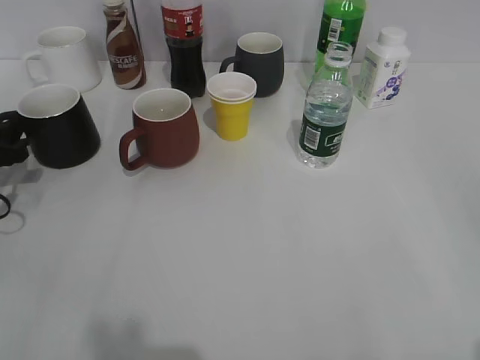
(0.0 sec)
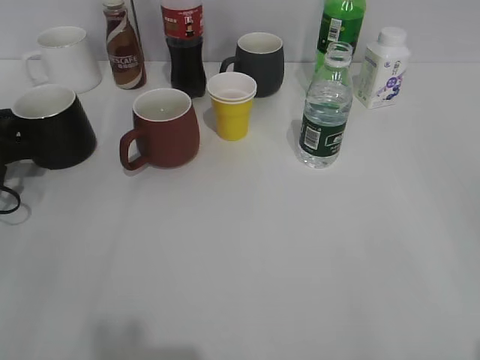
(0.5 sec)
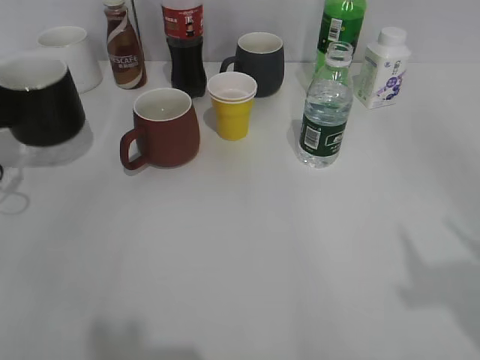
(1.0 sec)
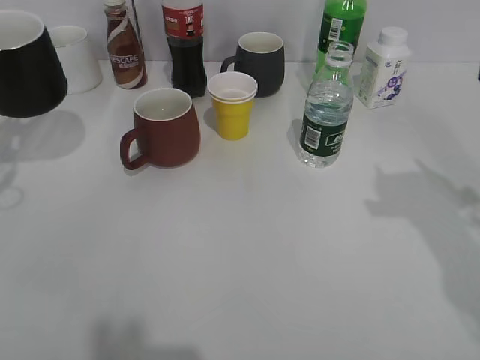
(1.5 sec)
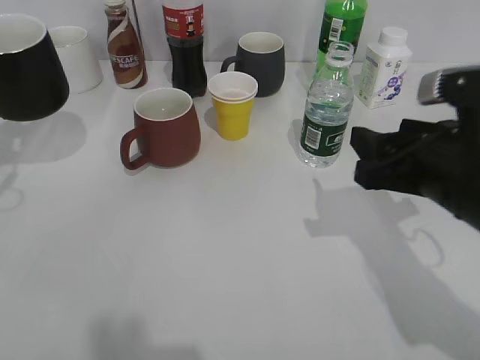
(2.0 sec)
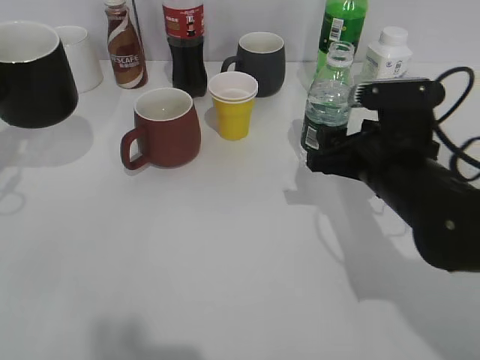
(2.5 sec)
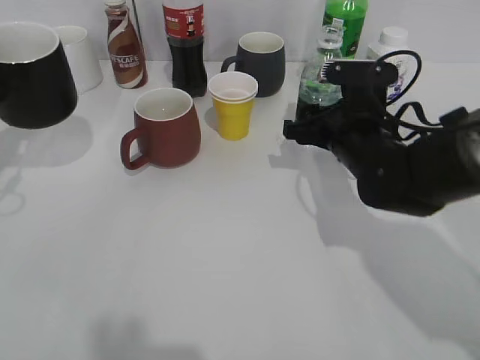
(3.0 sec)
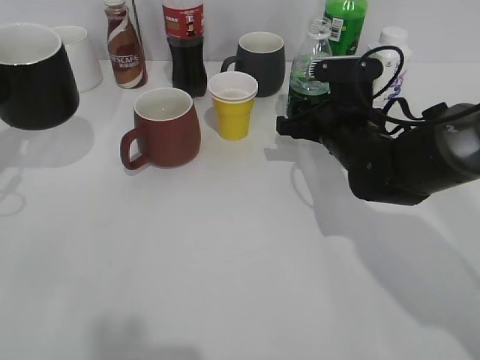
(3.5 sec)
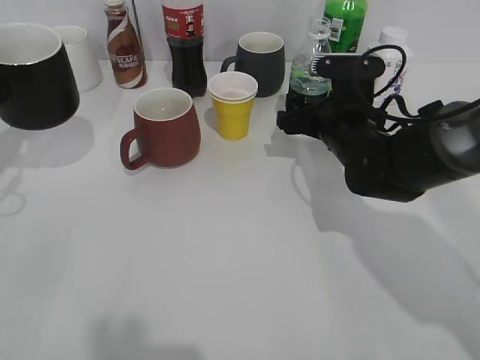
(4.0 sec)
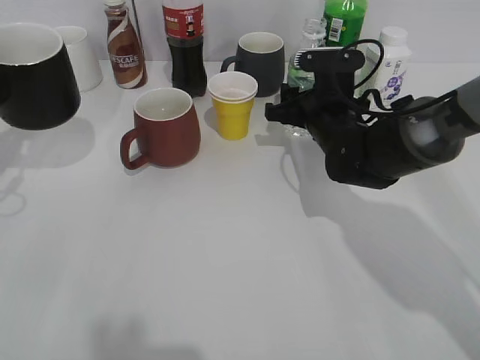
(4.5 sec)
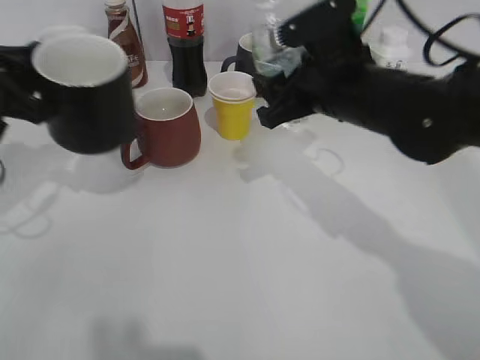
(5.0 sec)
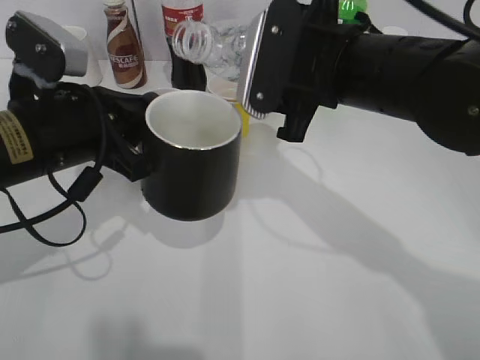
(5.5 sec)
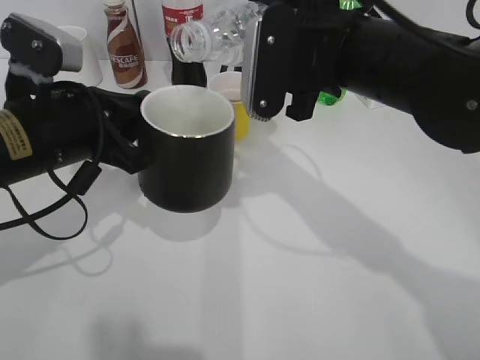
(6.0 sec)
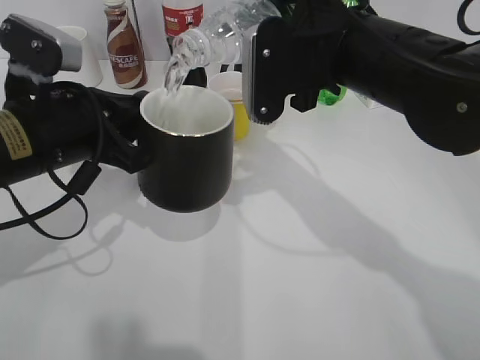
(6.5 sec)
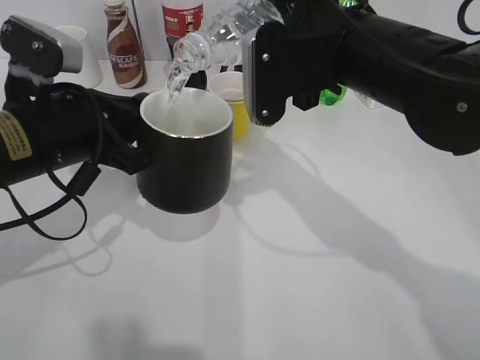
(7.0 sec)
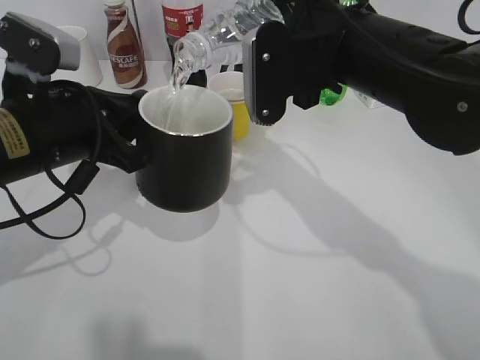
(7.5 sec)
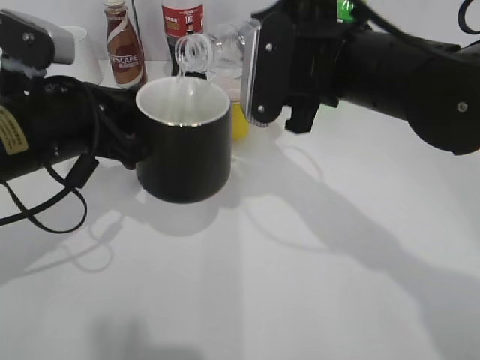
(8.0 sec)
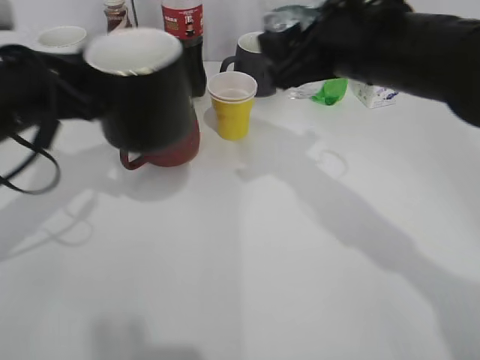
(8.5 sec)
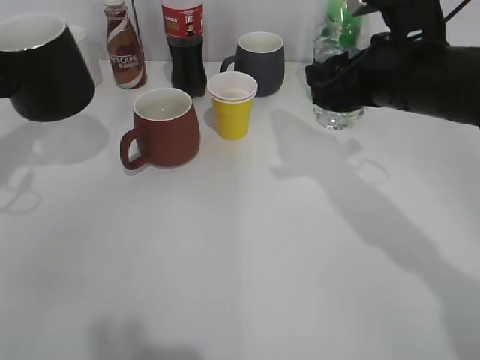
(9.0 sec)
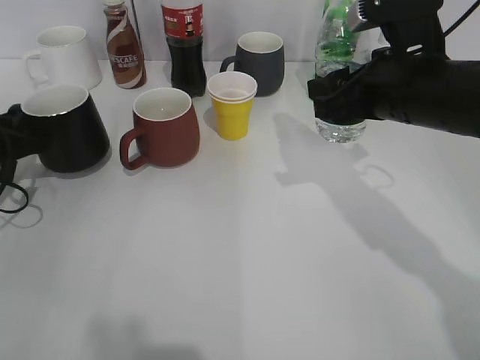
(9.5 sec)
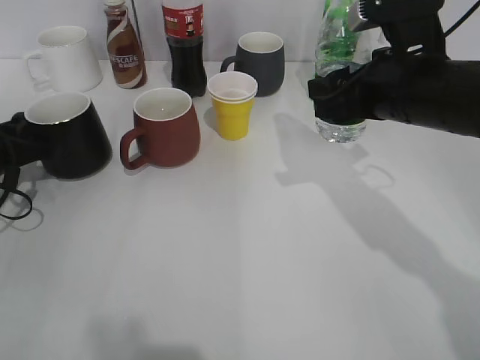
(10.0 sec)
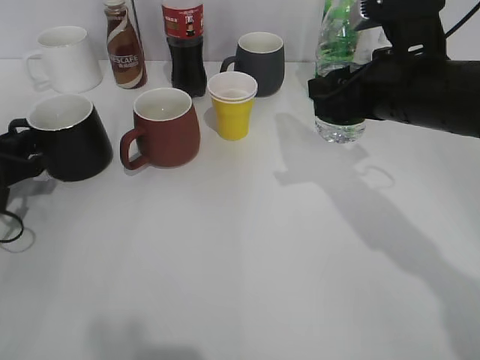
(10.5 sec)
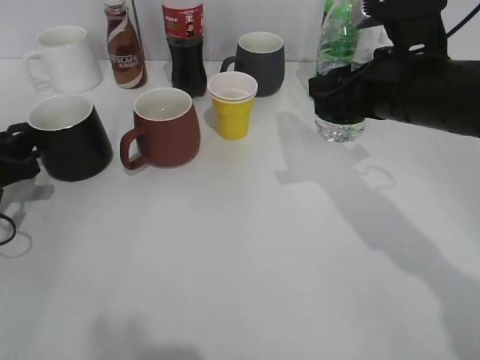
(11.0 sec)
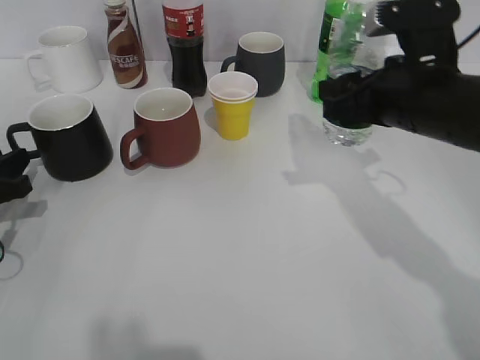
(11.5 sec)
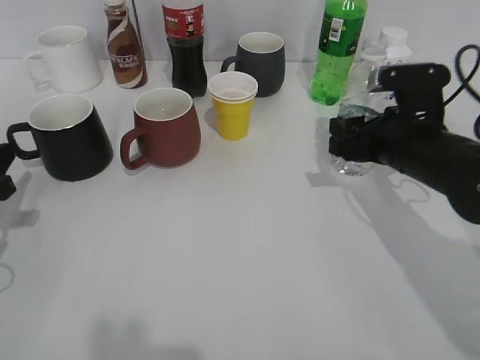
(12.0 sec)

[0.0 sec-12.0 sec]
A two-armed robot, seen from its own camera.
Step, 1.0 sec to 2.0 sec: Lift the black cup with left gripper.
Step, 2.5 sec to 4.5 sec: Grasp the bottle with water with right gripper.
Step, 5.0 sec to 8.0 sec: Pour the water from bottle to cup with right gripper.
Step, 8.5 sec to 10.0 sec: Place the black cup on the table with left gripper.
0.0 sec to 2.0 sec: The left gripper shifts some 10 cm upward, and closes its fingers, while the right gripper heads forward and to the left, covering about 25 cm.
2.0 sec to 4.0 sec: The right gripper moves forward and downward, some 15 cm, and opens up.
4.0 sec to 6.0 sec: The left gripper goes approximately 15 cm to the right. The right gripper moves upward and backward, approximately 15 cm, and closes its fingers.
6.0 sec to 8.0 sec: The grippers make only small movements.
8.0 sec to 10.0 sec: The left gripper heads to the left, downward and forward, covering roughly 20 cm, while the right gripper travels to the right by roughly 5 cm.
10.0 sec to 12.0 sec: The left gripper heads backward, covering about 10 cm, and opens its fingers, while the right gripper heads downward, covering roughly 10 cm.

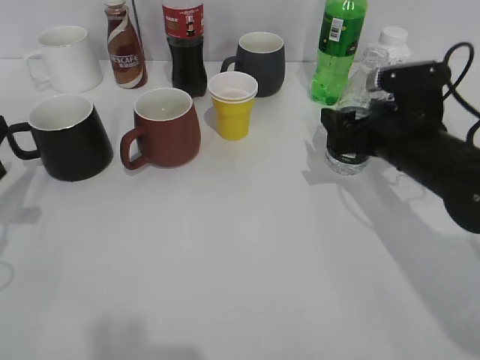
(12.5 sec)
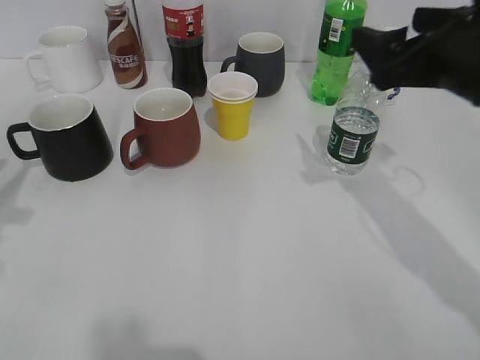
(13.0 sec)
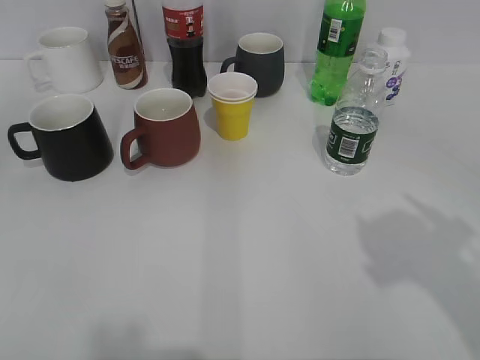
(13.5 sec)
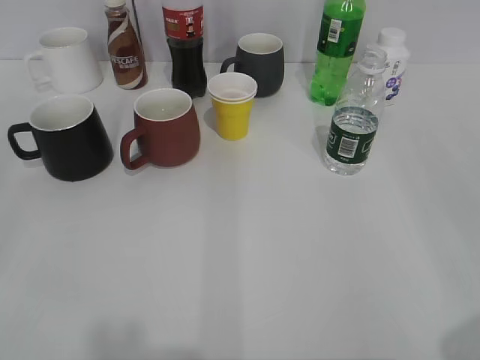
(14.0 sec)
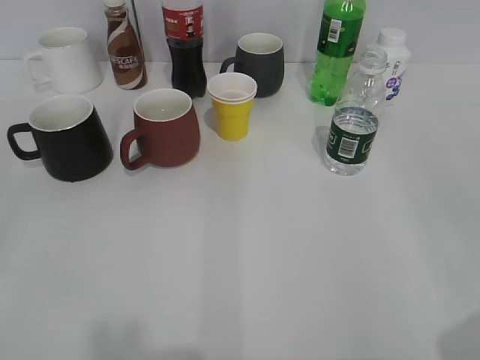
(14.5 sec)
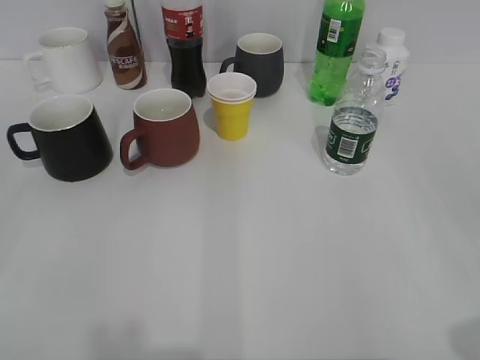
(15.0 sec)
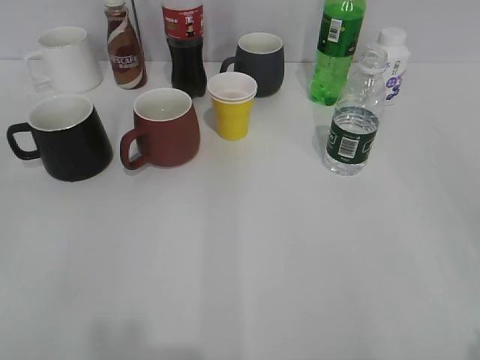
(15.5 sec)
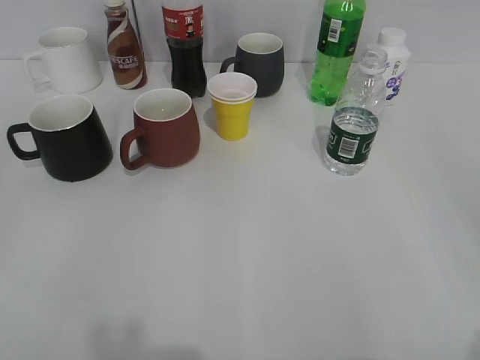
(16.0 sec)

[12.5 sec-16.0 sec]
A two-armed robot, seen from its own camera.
12.5 sec to 14.5 sec: Both grippers move backward and upward, about 30 cm. The left gripper opens up.

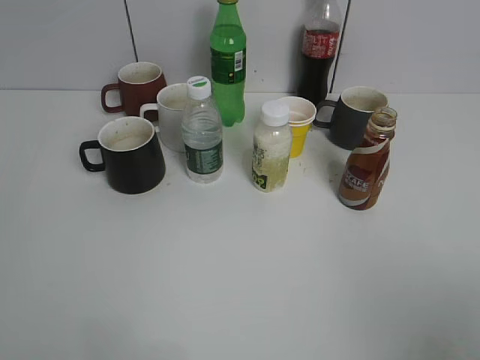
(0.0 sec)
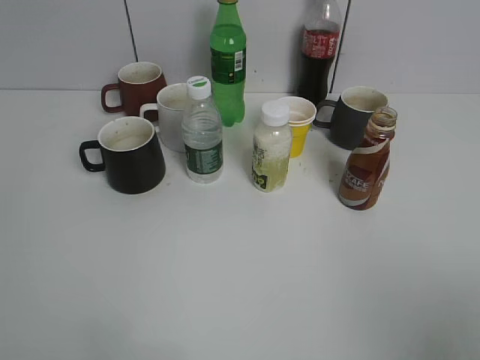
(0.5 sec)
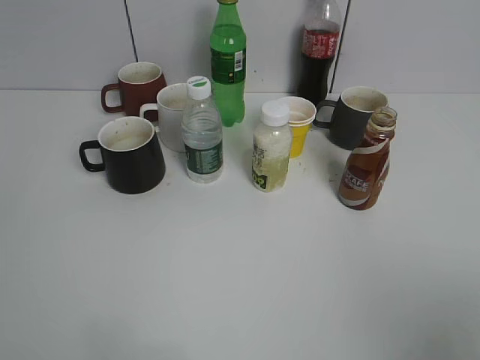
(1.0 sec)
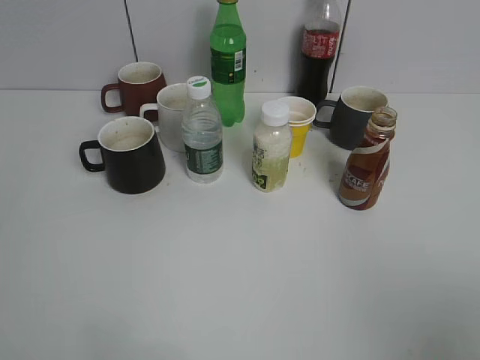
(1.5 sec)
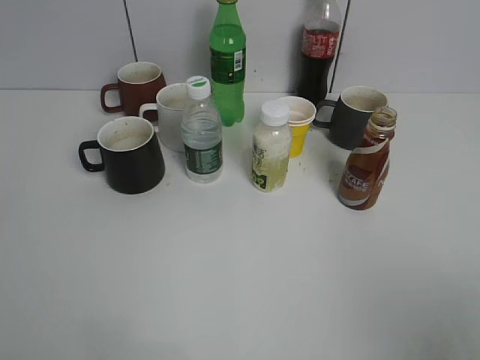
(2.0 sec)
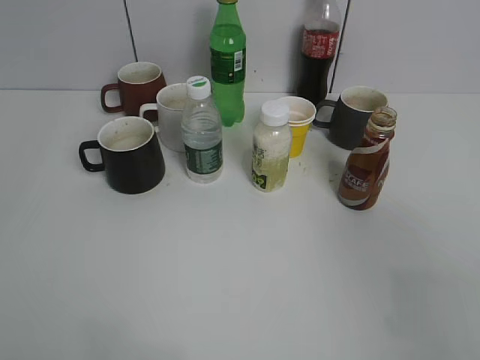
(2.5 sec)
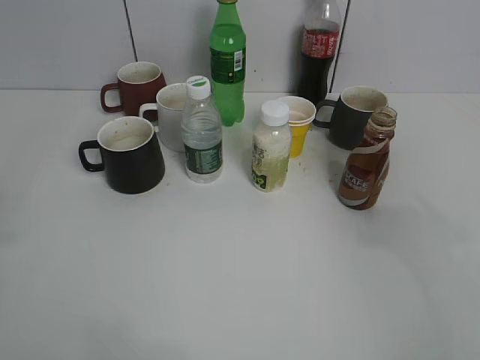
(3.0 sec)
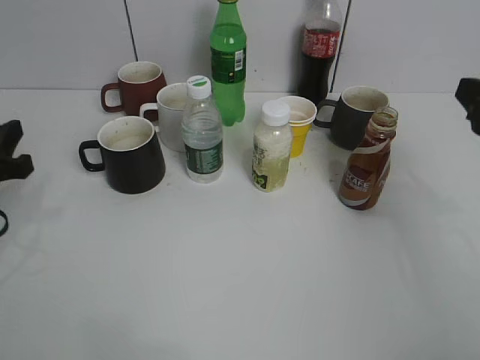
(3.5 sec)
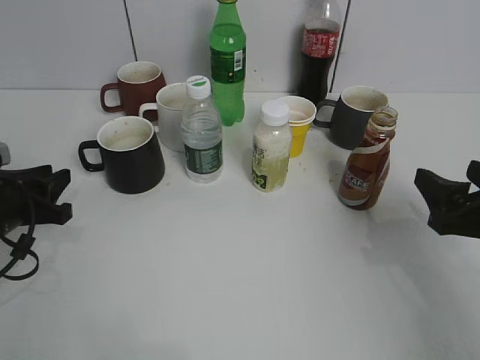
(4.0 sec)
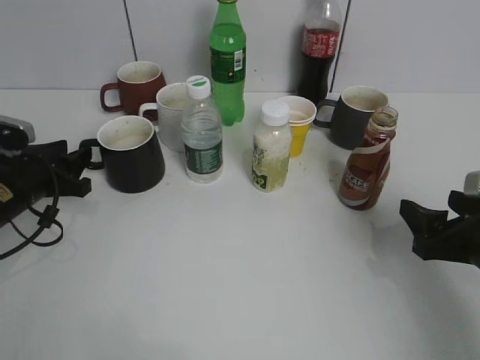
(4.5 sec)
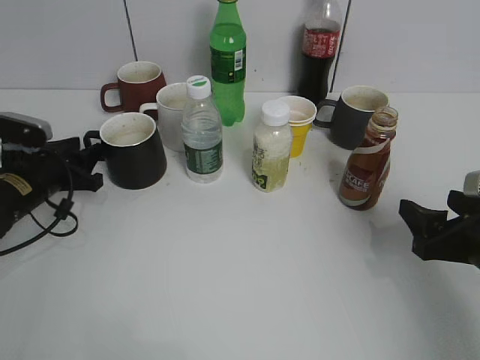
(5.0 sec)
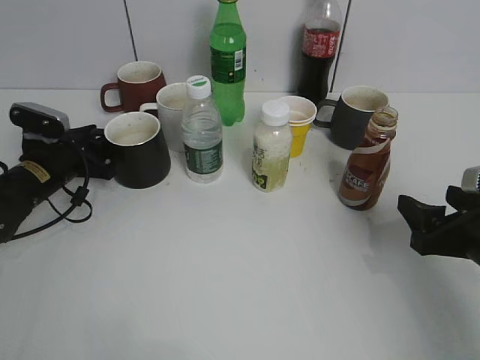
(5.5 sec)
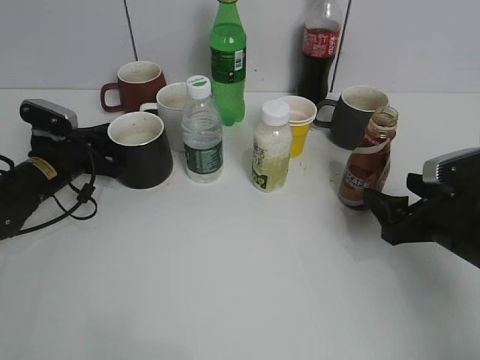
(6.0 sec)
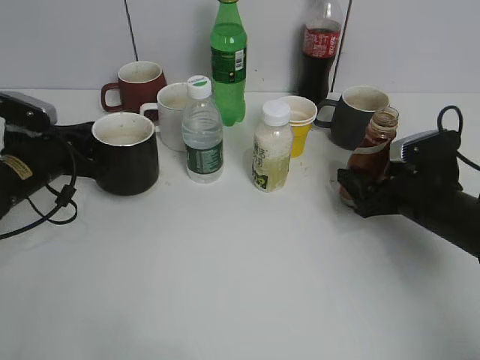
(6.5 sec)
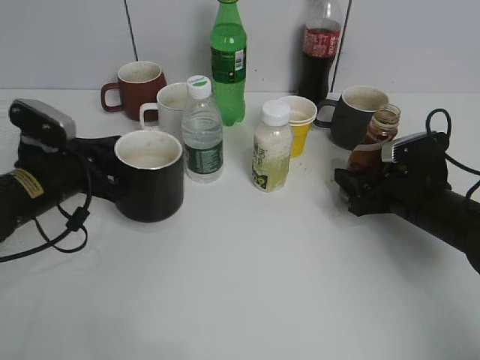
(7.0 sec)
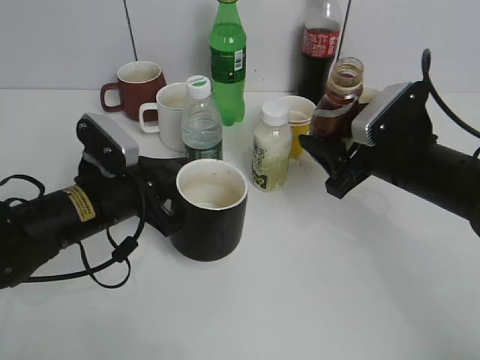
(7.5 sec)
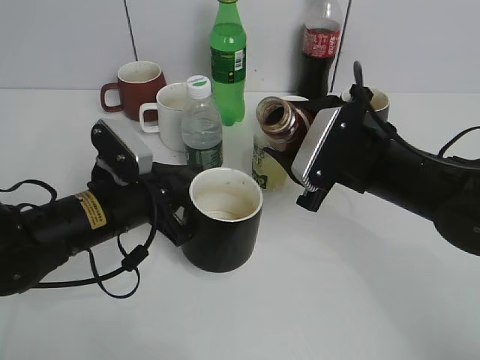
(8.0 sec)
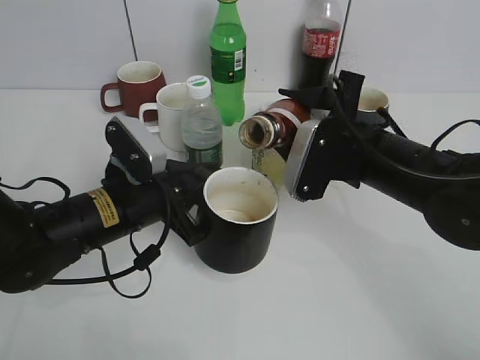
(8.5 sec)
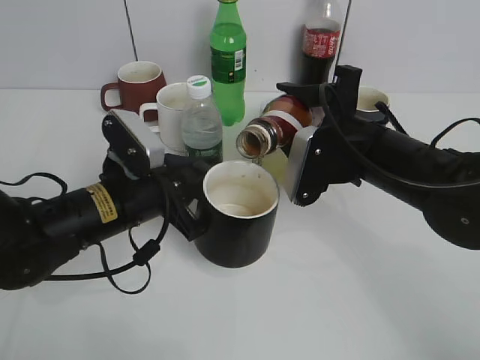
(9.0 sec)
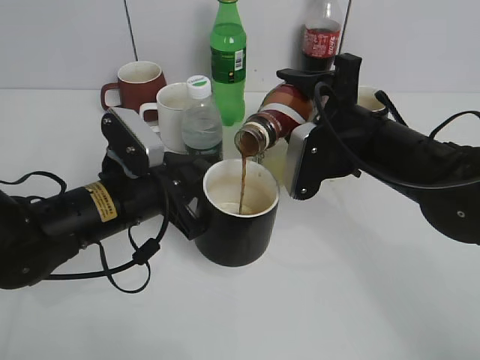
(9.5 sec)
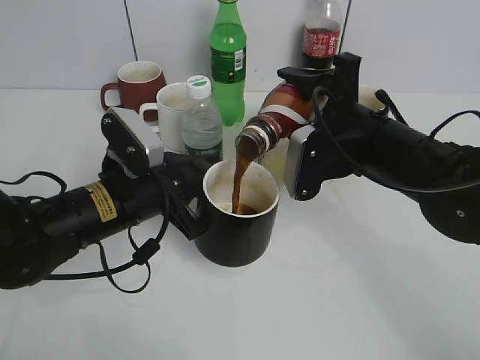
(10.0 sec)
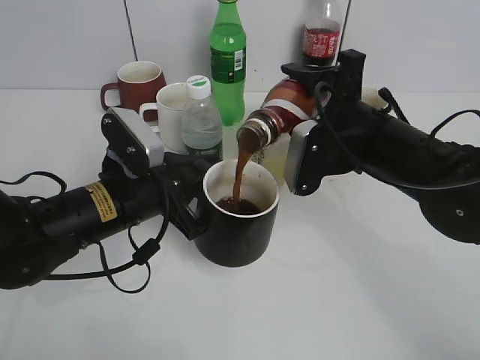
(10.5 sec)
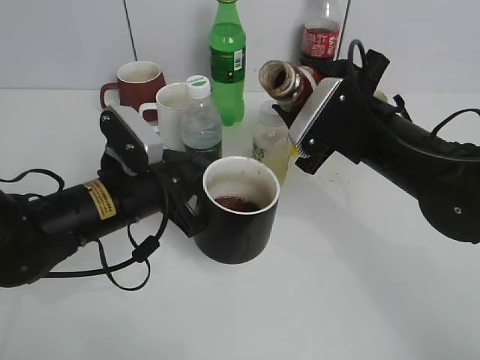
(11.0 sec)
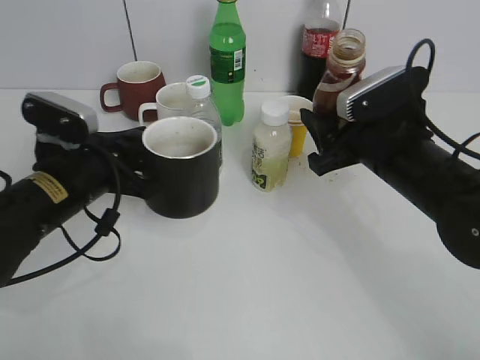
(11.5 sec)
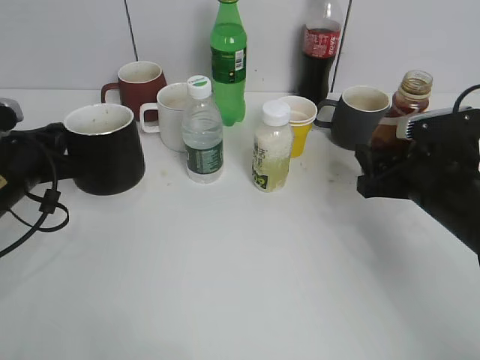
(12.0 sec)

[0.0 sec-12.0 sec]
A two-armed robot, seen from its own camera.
Step, 2.0 sec to 5.0 sec: Grasp the black cup with left gripper.
Step, 5.5 sec to 6.0 sec: Grasp the bottle with coffee with right gripper.
Step, 7.0 sec to 10.5 sec: Pour the coffee from bottle to cup with right gripper.
2.0 sec to 4.0 sec: Both grippers move forward and downward, roughly 30 cm.
4.0 sec to 6.0 sec: The left gripper shifts about 10 cm forward, and closes its fingers. Meanwhile the right gripper shifts about 5 cm downward.
6.0 sec to 8.0 sec: The right gripper moves to the left and upward, roughly 10 cm, and closes its fingers. The left gripper shifts some 15 cm backward and to the right.
10.0 sec to 12.0 sec: The right gripper is displaced to the right by some 10 cm. The left gripper shifts roughly 15 cm to the left.
